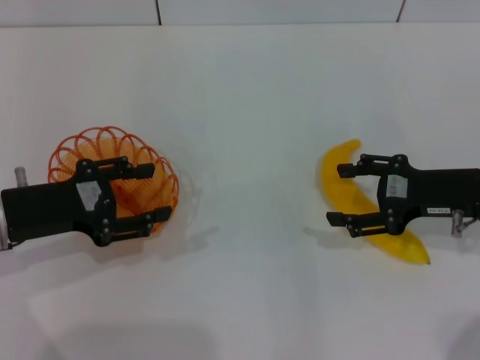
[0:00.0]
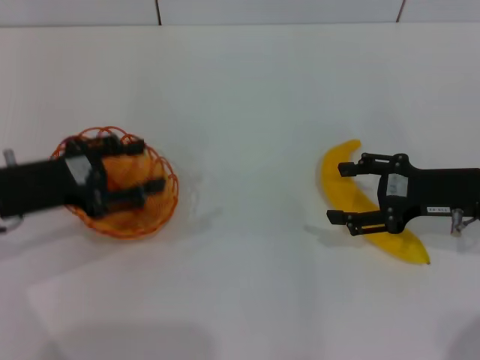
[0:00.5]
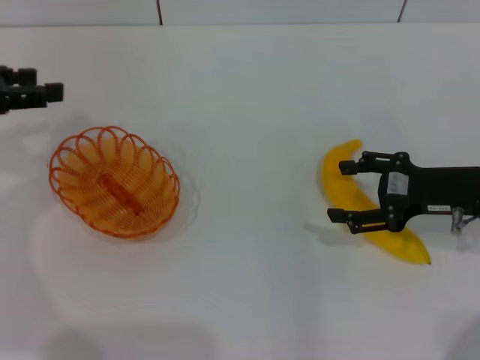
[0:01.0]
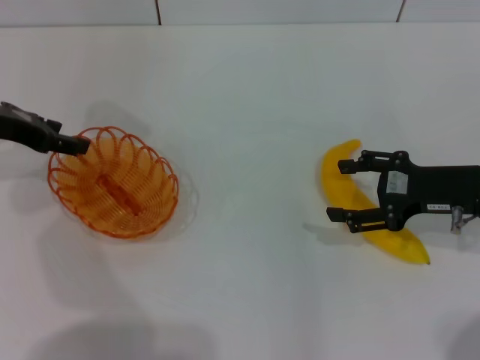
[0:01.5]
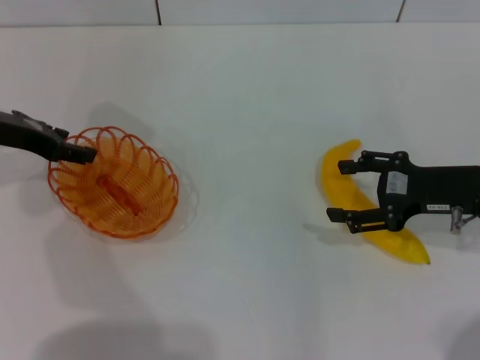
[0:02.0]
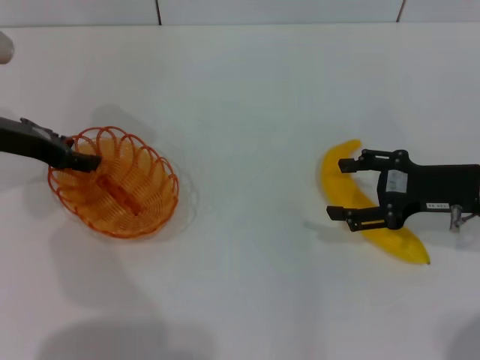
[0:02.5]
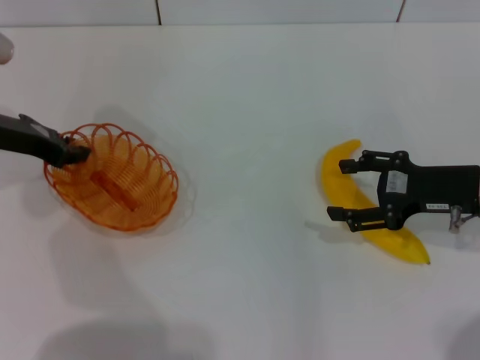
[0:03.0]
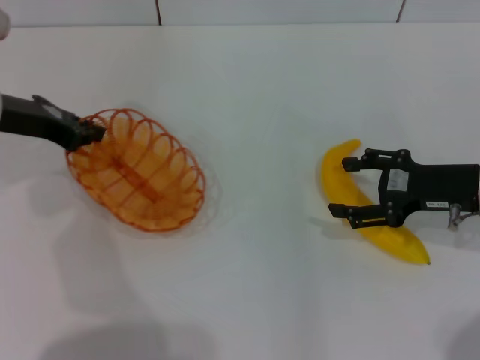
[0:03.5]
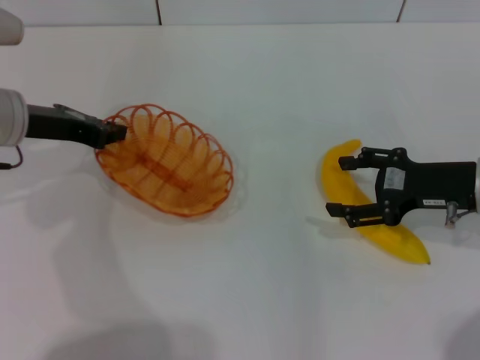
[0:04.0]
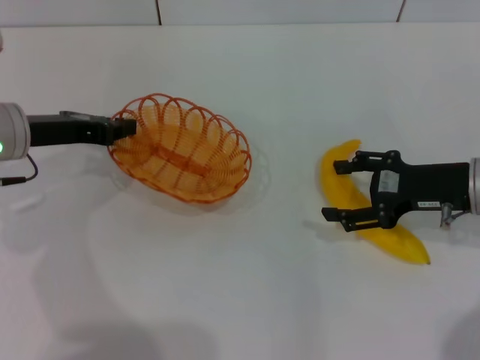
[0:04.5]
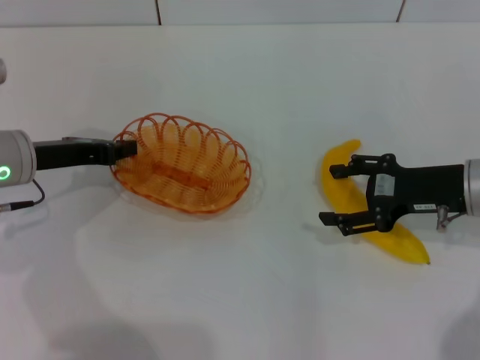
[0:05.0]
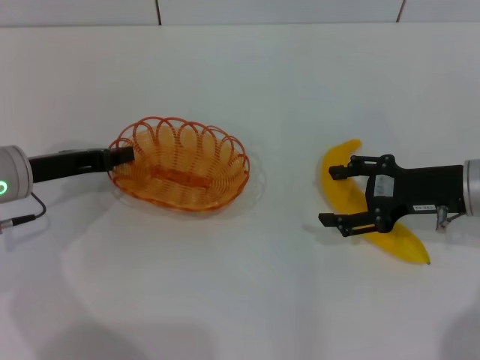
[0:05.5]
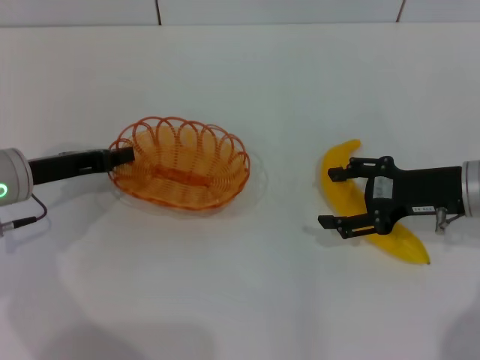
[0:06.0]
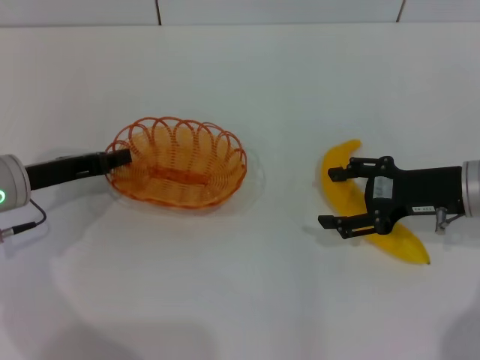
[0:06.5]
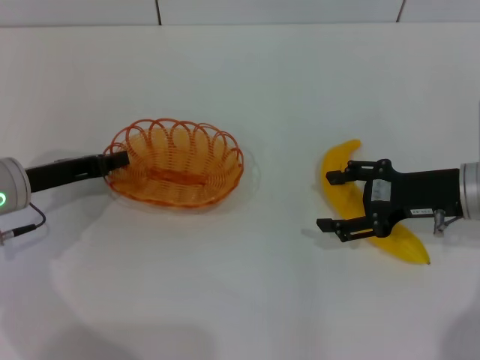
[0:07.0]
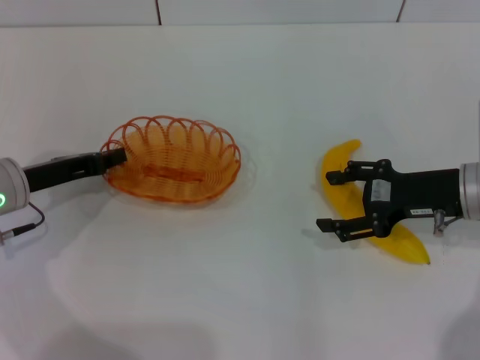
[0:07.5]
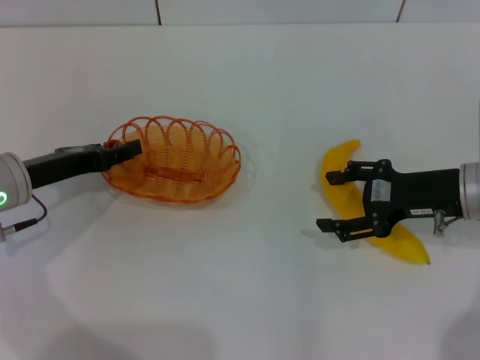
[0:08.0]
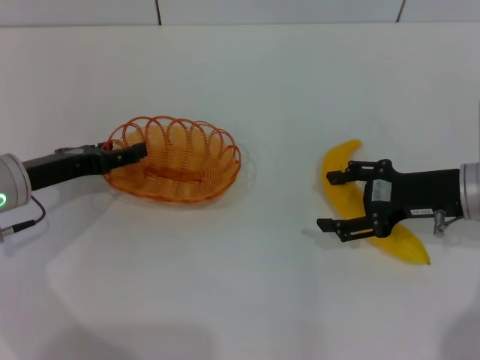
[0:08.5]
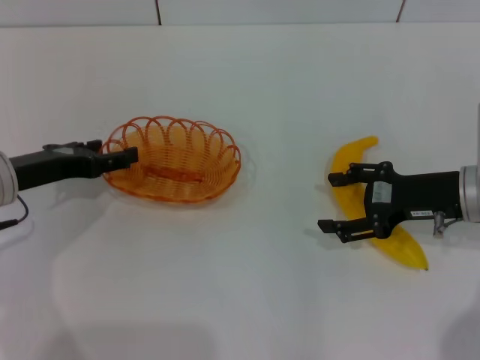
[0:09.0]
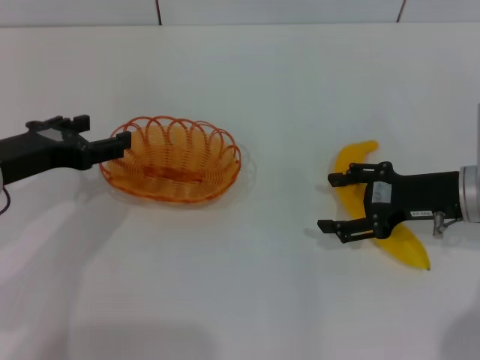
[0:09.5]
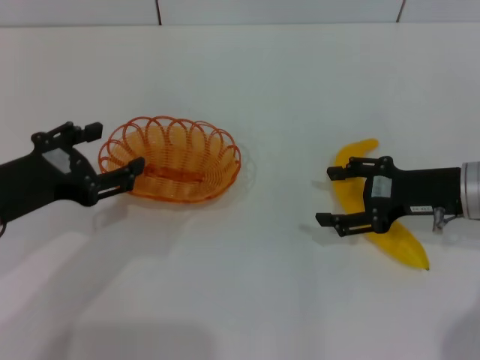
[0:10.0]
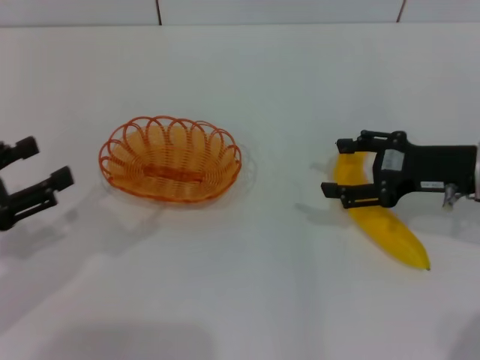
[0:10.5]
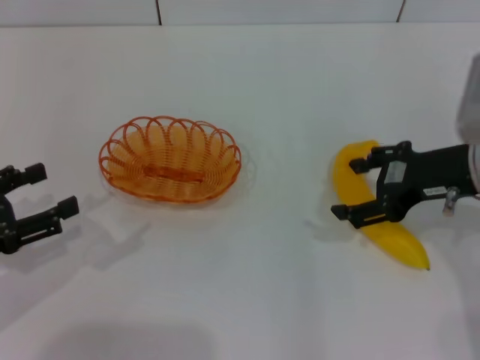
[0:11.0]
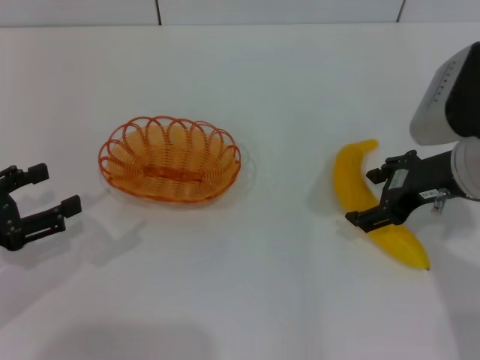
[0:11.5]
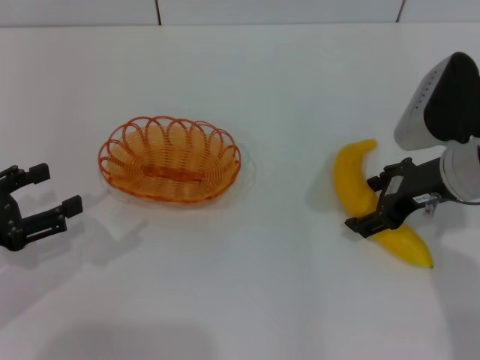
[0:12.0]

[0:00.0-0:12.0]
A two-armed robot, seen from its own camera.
Step, 0:00.0 to 0:04.0: Pick up the basket with the left gripper.
Step, 0:04.5 to 0:09.5: Place the basket in the center of view with the left gripper.
0:00.0 to 0:02.0: The left gripper heads forward, covering about 10 cm.
0:02.0 to 0:04.0: The left gripper closes up.
0:04.0 to 0:06.0: The left gripper travels downward by about 5 cm.
0:06.0 to 0:08.0: The left gripper opens its fingers.
0:08.0 to 0:10.0: The left gripper travels backward and upward by roughly 10 cm, and opens.
0:10.0 to 0:12.0: The right gripper moves approximately 5 cm; the left gripper heads to the left, covering roughly 10 cm.

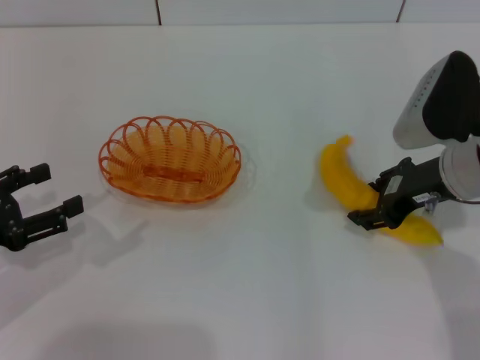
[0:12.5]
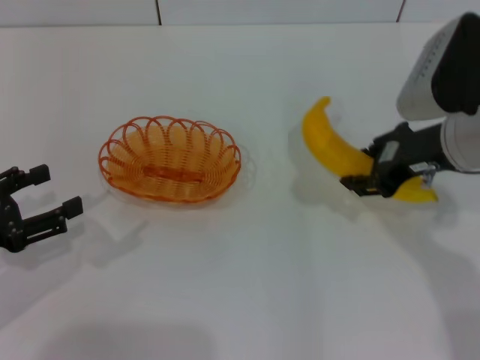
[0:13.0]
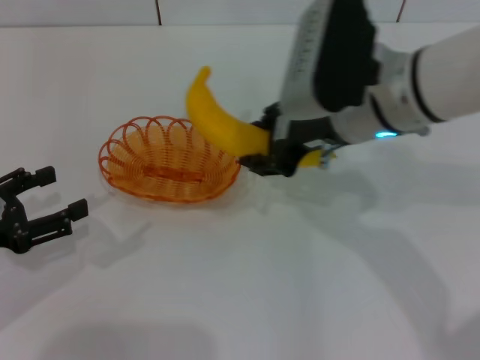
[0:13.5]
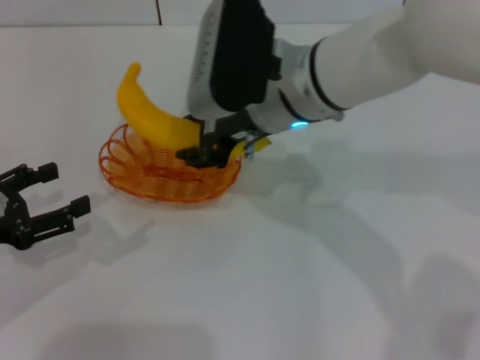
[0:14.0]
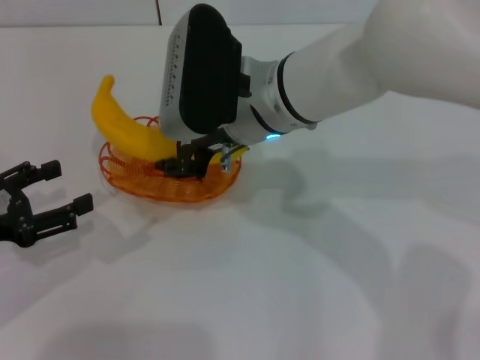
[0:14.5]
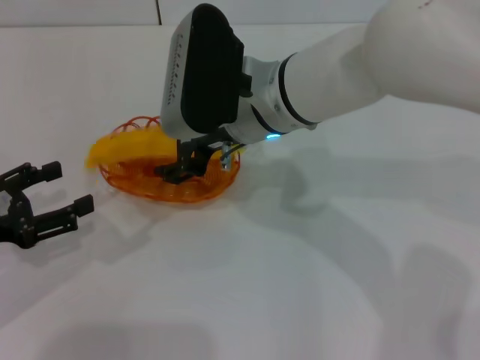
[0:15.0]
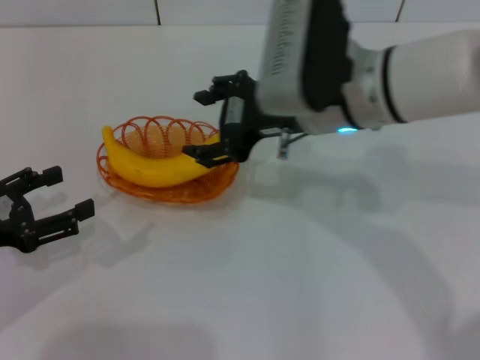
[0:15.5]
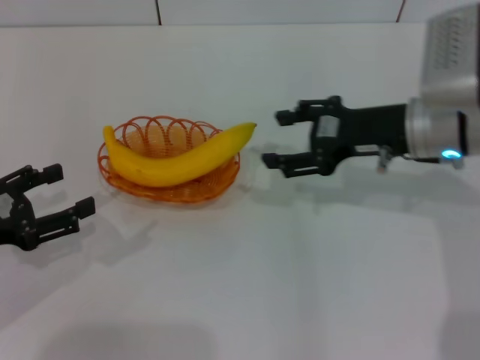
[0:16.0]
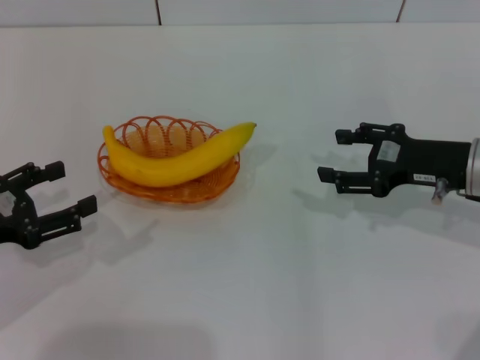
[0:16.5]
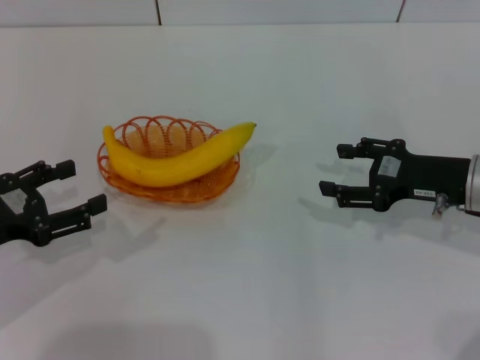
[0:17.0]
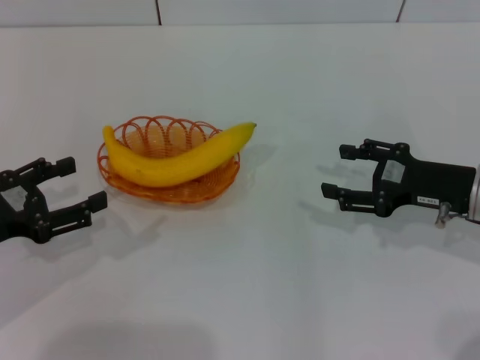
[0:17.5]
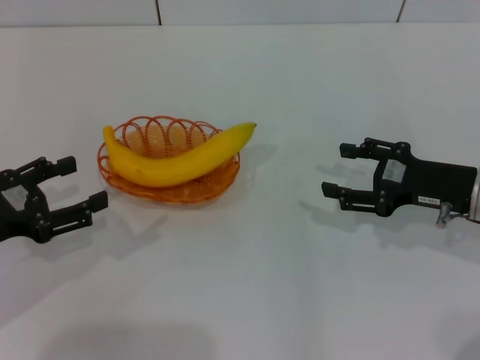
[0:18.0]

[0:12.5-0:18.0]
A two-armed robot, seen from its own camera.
Step, 0:13.5 to 0:15.5: Place the banana into the basket with the right gripper.
0:12.5 to 0:14.5: The right gripper heads to the left, covering roughly 20 cm, and closes its fingers.
0:14.5 to 0:16.0: The right gripper shifts about 20 cm to the right, and opens its fingers.
0:16.0 to 0:18.0: The right gripper travels to the right, downward and backward by roughly 10 cm.

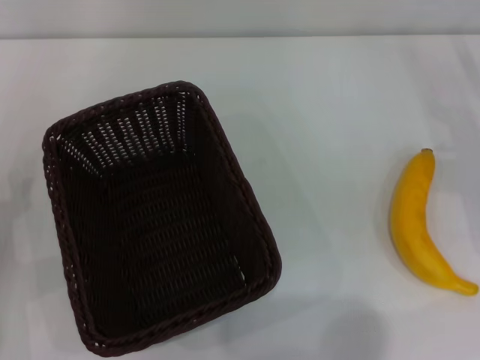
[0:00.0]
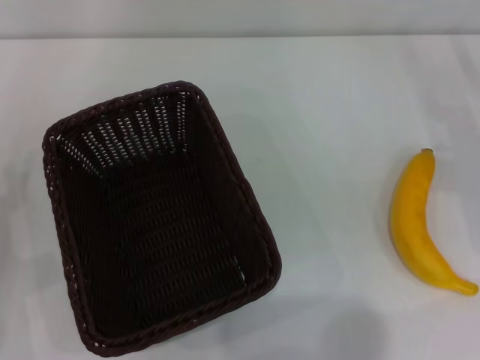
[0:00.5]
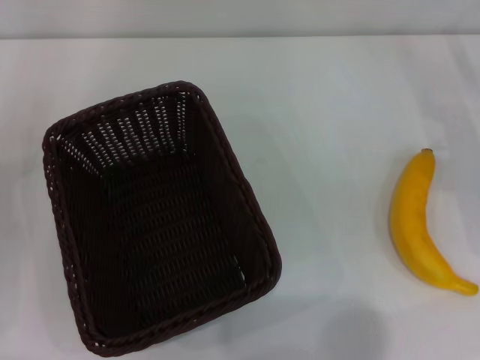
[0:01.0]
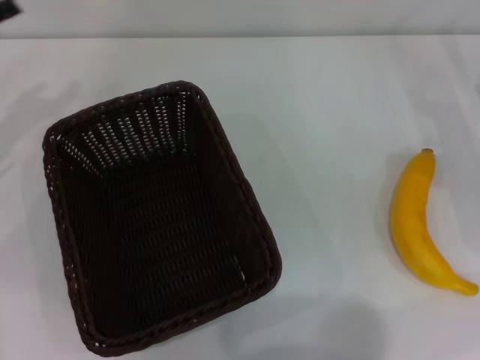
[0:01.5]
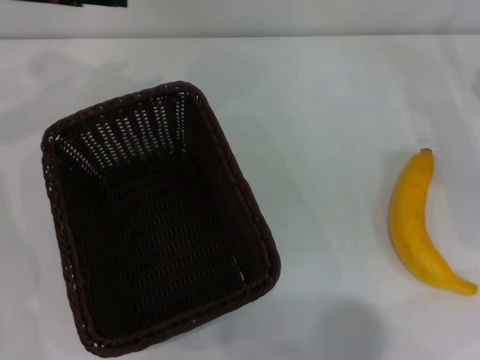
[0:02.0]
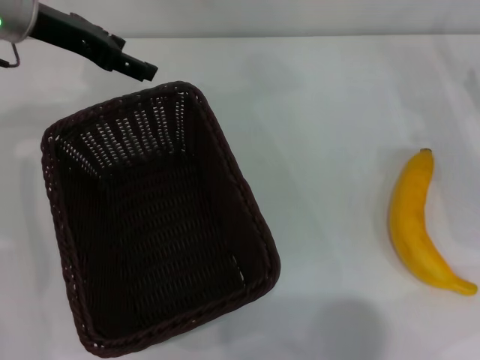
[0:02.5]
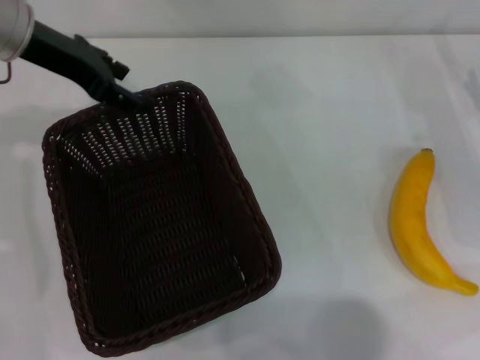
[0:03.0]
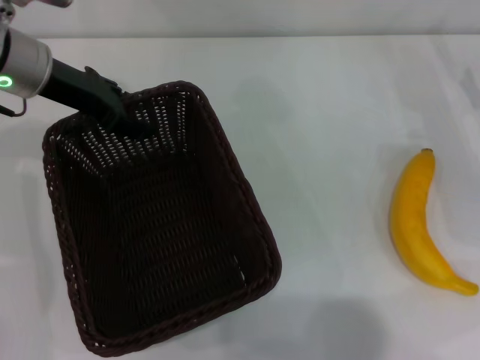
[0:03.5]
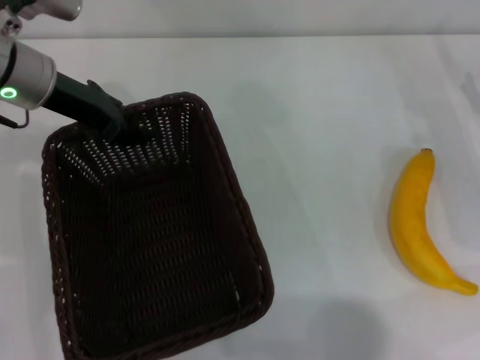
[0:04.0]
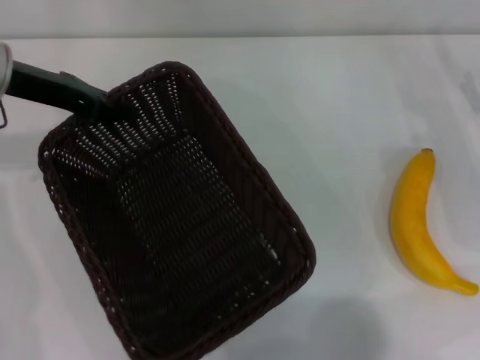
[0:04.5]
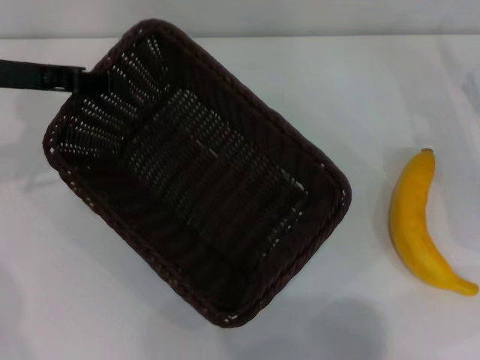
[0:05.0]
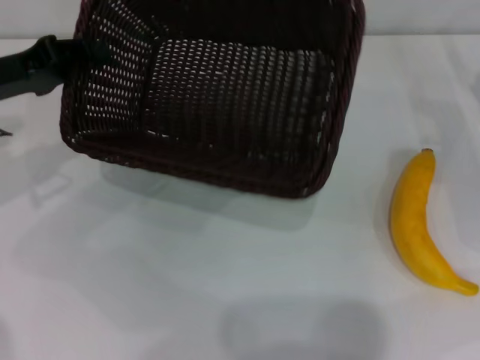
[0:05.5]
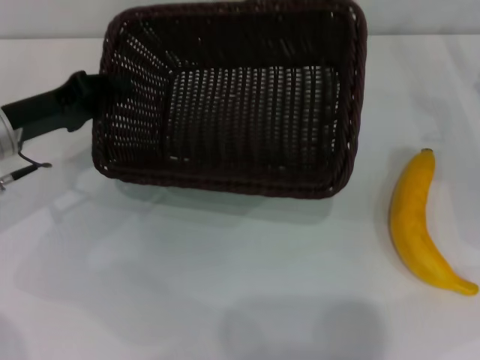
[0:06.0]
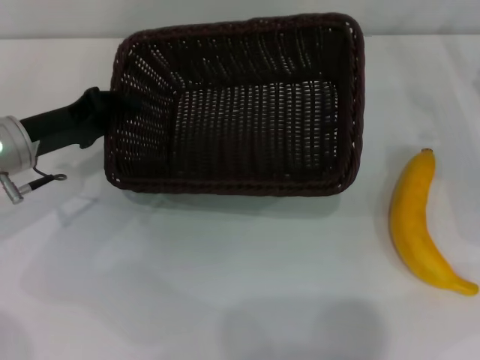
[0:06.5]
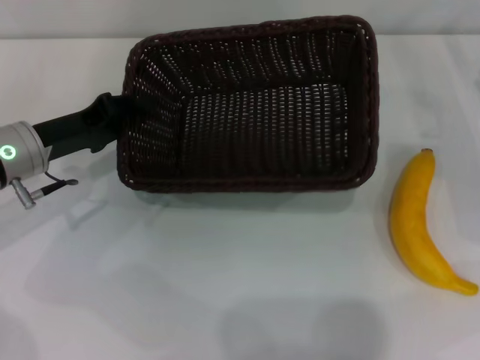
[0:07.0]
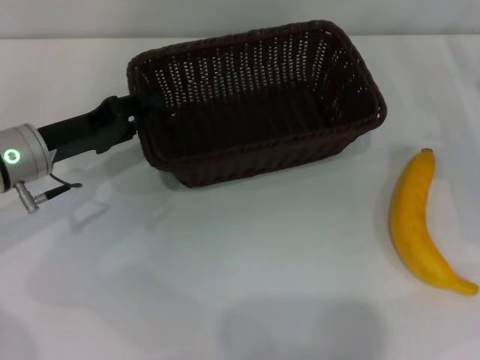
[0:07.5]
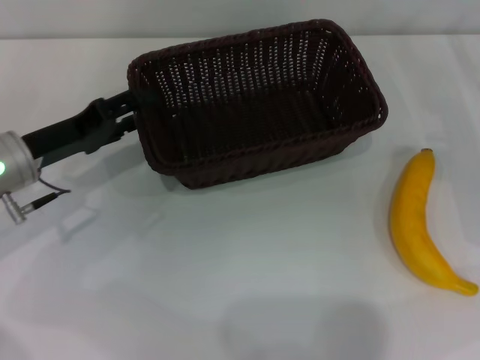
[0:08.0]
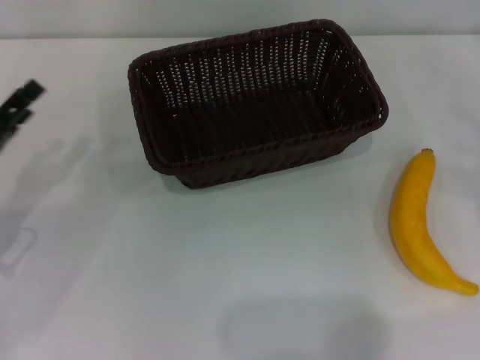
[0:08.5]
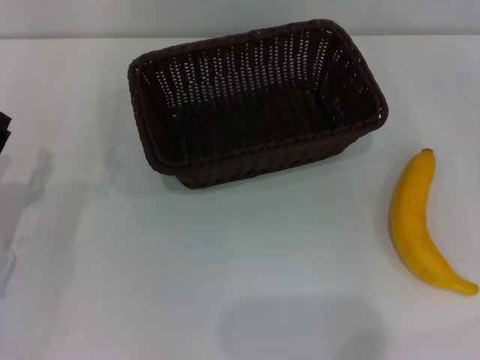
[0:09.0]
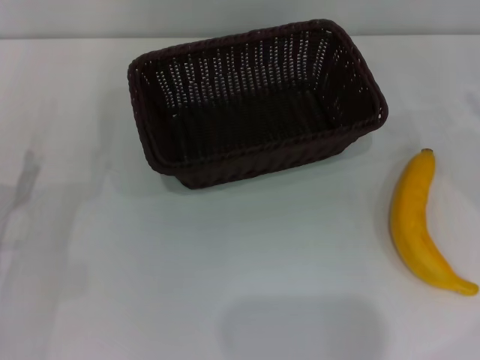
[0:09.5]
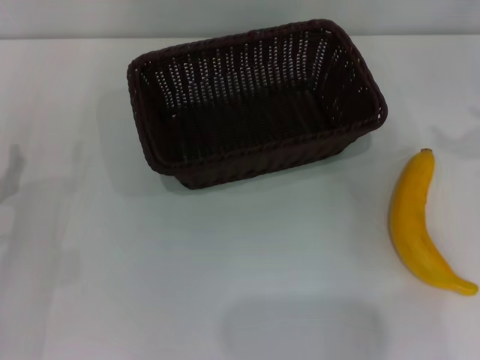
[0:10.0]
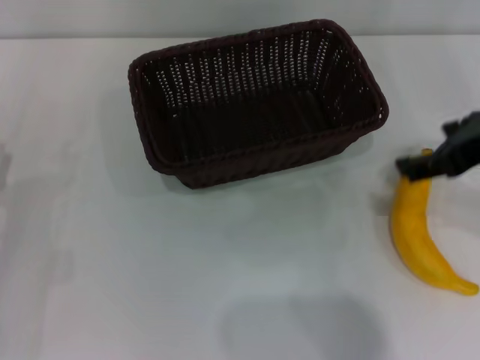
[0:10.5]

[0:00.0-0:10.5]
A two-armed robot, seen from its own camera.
Step, 0:00.0 to 0:05.0: Pick up the dark basket with the left gripper.
Step, 0:06.0 to 0:08.0: Place the dark basket in the center of view with the left gripper.
0:00.0 to 0:02.0: The left gripper shifts some 30 cm upward and forward.
0:02.0 to 0:04.0: The left gripper travels downward by roughly 5 cm, and closes up.
0:04.0 to 0:06.5: The left gripper moves downward and backward, roughly 10 cm.
0:06.5 to 0:08.5: The left gripper is displaced backward and to the left by about 10 cm, and opens its fingers.
0:08.5 to 0:10.5: The right gripper shifts about 25 cm upward and to the left.
